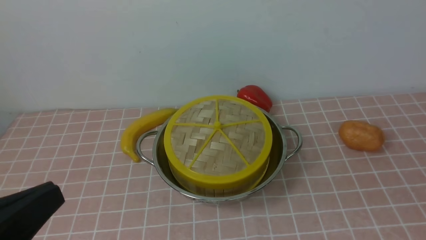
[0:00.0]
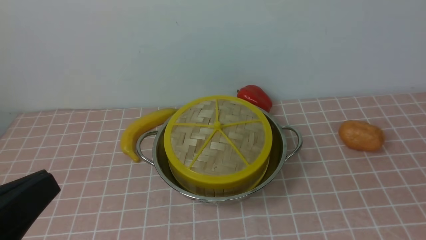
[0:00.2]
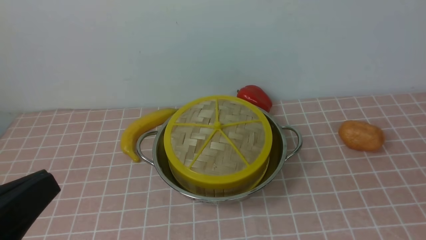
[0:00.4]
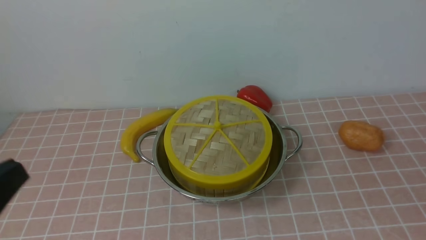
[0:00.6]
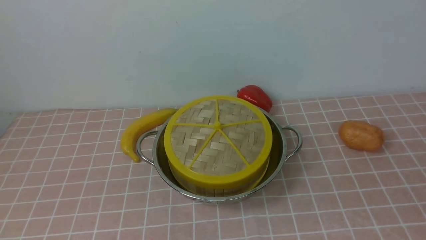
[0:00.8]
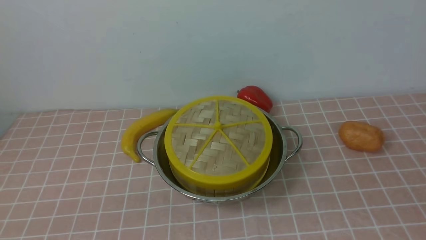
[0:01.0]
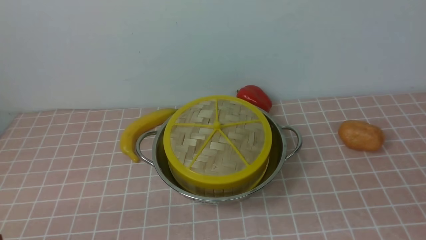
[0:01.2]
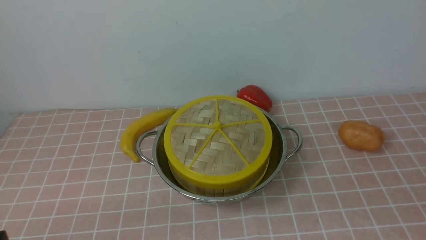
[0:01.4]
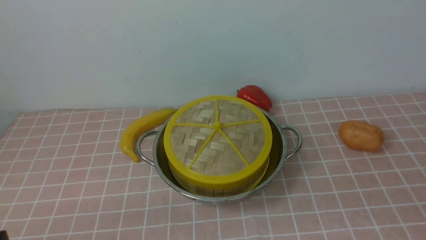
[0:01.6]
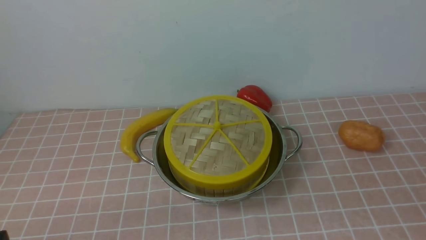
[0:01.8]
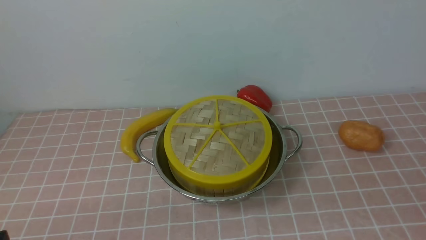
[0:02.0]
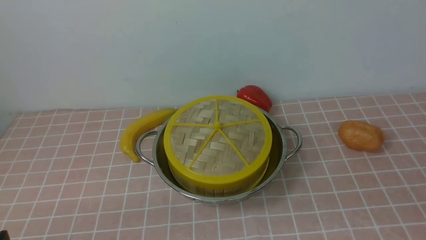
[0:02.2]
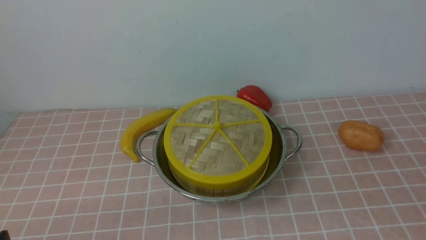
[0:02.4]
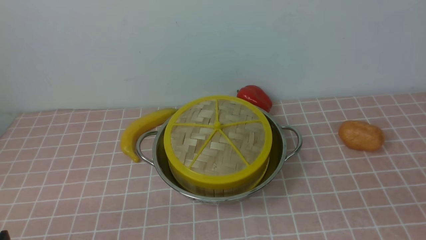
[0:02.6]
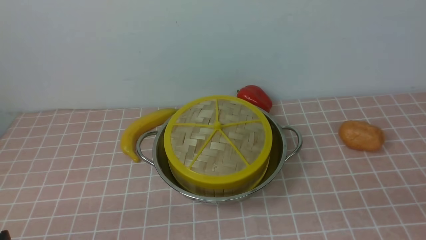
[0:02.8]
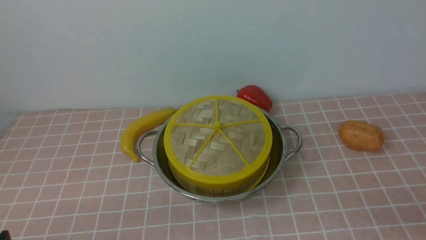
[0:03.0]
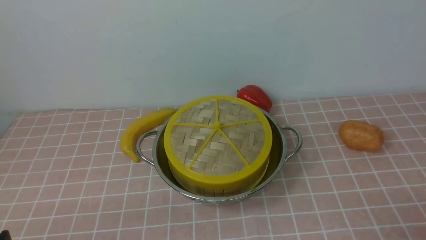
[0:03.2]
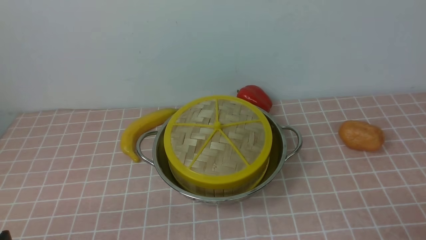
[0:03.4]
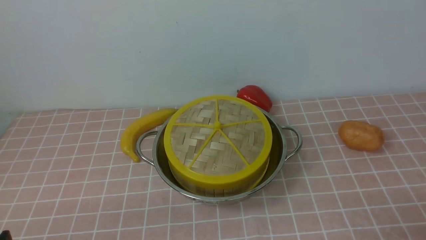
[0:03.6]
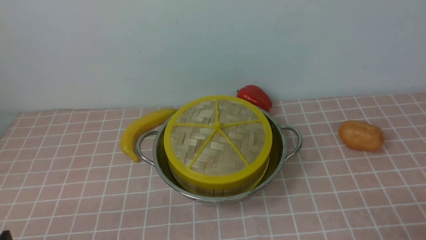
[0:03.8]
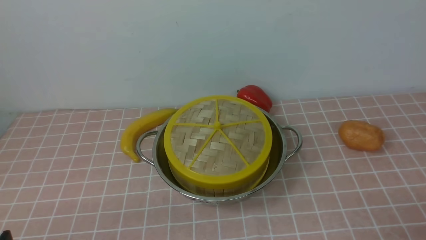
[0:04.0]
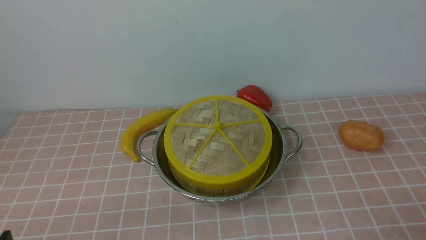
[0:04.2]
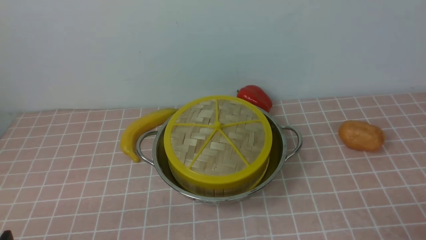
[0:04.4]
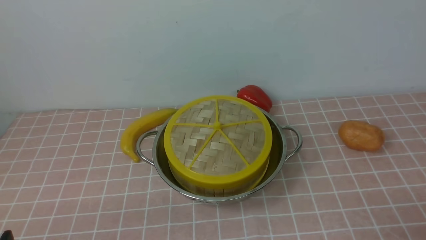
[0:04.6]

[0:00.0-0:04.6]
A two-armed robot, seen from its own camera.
Task of the whole recording: place the steamer in the pot on the pink tablecloth, and put the lid on the steamer.
0:00.0 to 0:01.6: The left gripper travels downward by roughly 15 cm.

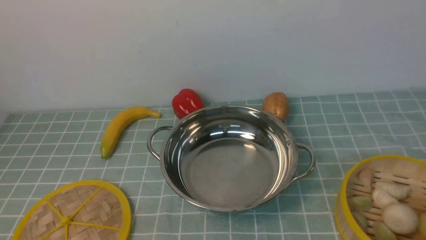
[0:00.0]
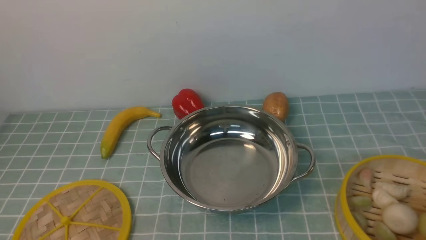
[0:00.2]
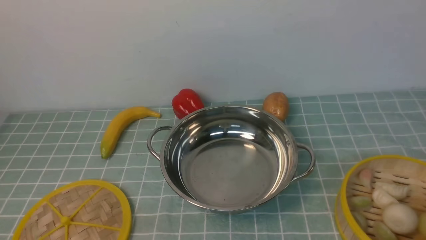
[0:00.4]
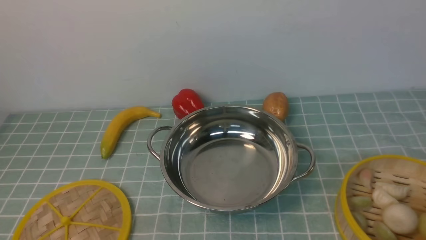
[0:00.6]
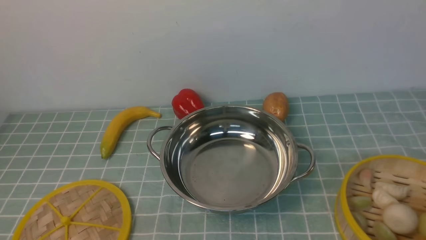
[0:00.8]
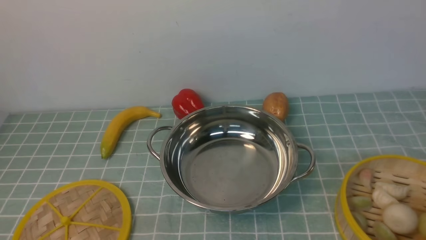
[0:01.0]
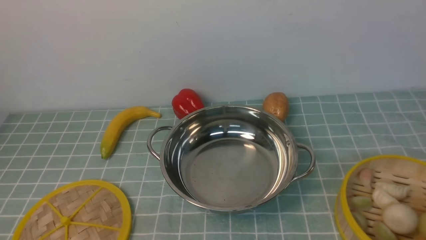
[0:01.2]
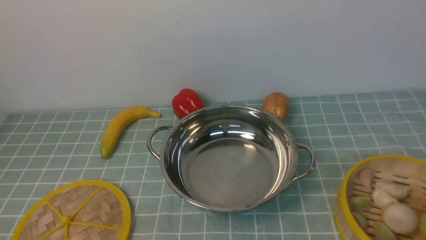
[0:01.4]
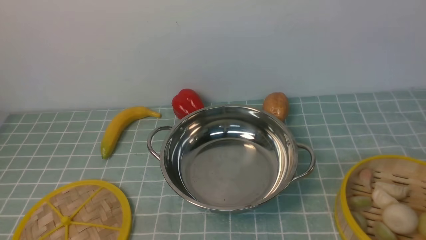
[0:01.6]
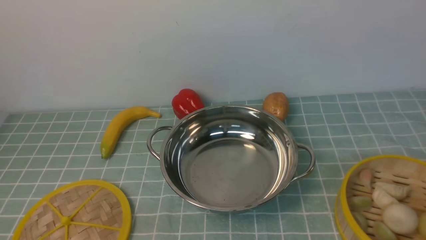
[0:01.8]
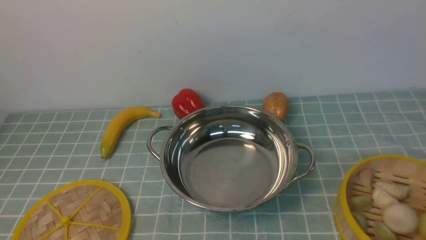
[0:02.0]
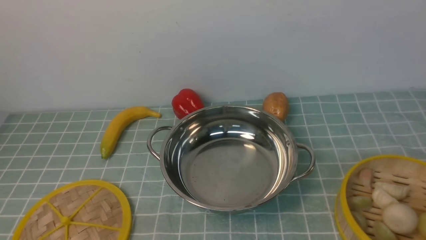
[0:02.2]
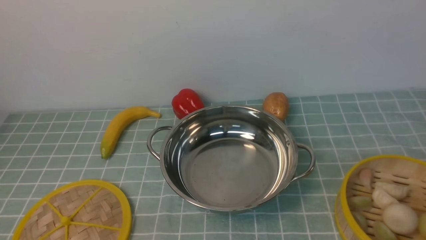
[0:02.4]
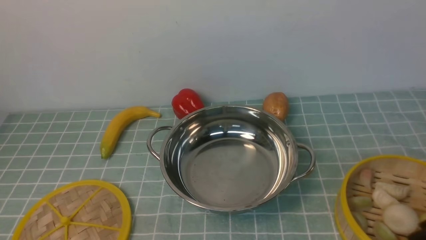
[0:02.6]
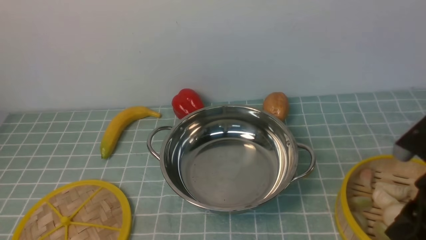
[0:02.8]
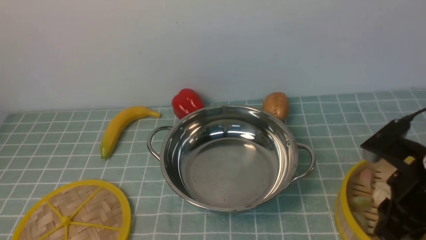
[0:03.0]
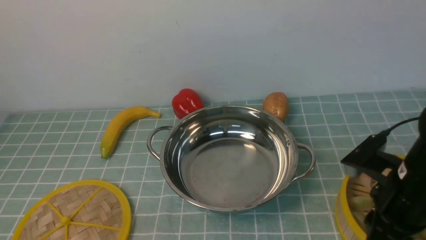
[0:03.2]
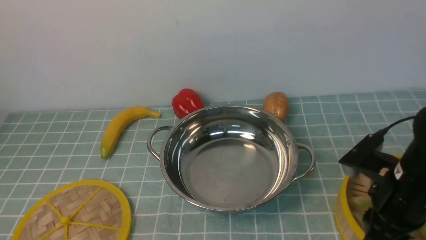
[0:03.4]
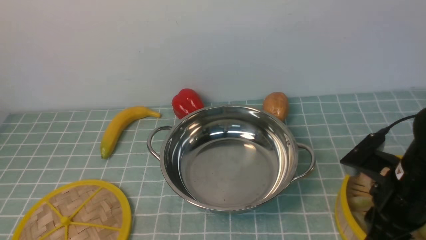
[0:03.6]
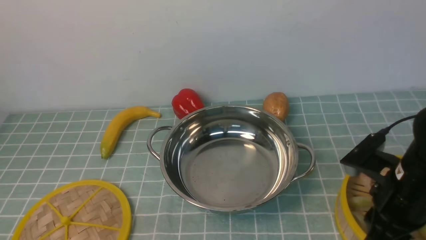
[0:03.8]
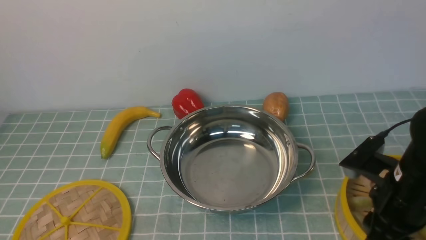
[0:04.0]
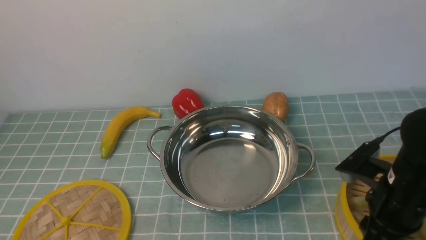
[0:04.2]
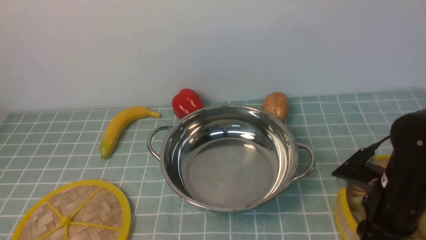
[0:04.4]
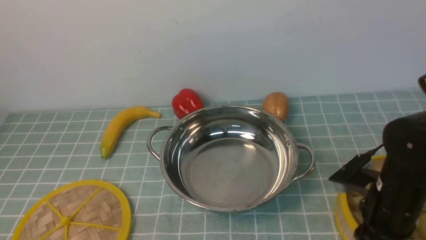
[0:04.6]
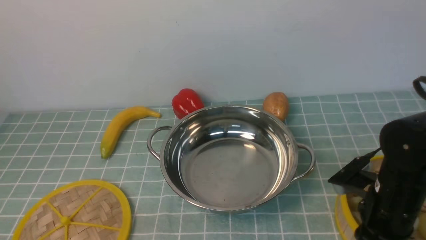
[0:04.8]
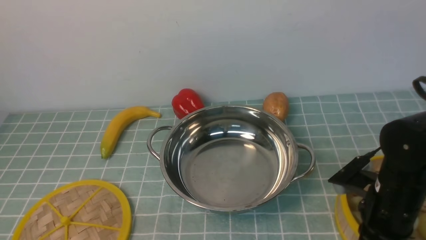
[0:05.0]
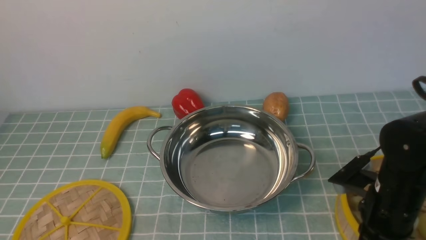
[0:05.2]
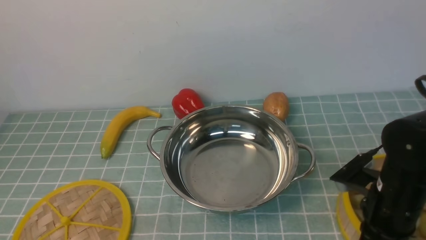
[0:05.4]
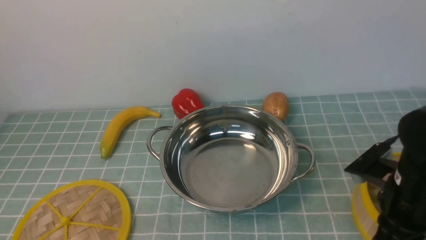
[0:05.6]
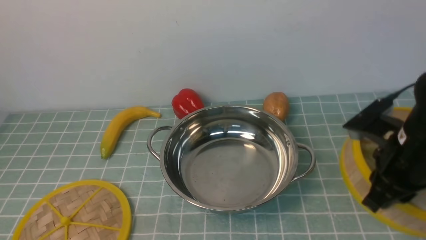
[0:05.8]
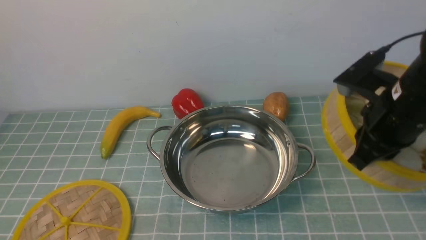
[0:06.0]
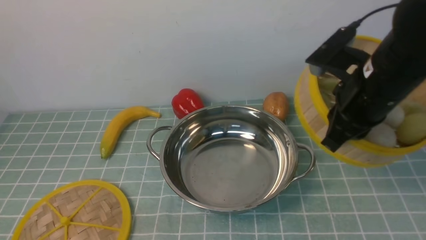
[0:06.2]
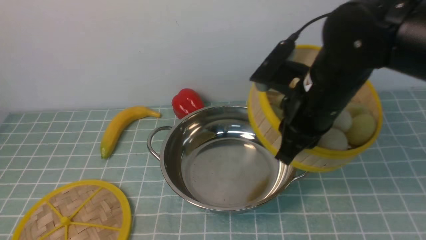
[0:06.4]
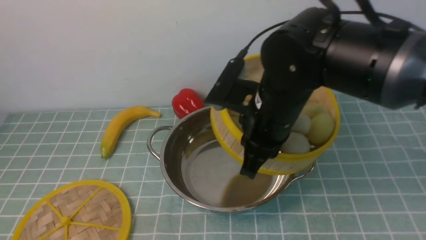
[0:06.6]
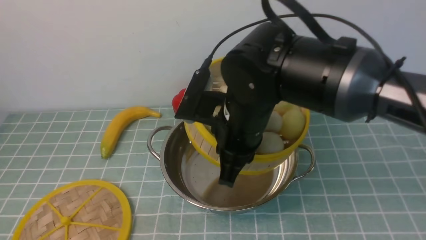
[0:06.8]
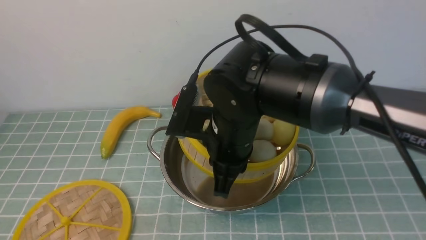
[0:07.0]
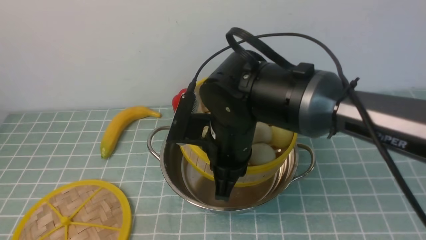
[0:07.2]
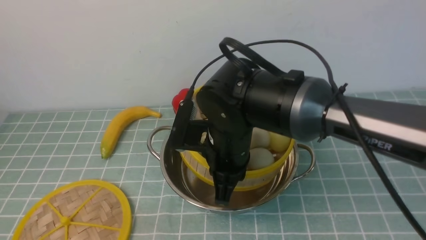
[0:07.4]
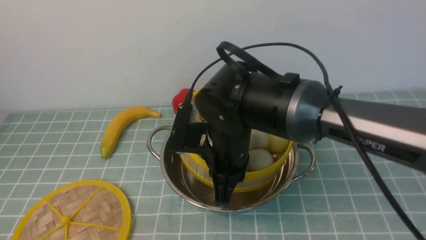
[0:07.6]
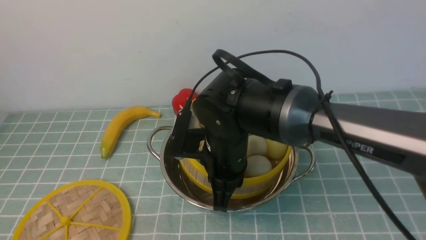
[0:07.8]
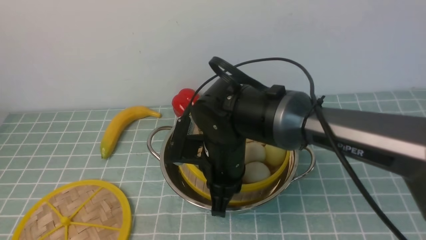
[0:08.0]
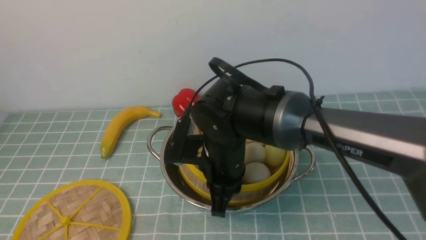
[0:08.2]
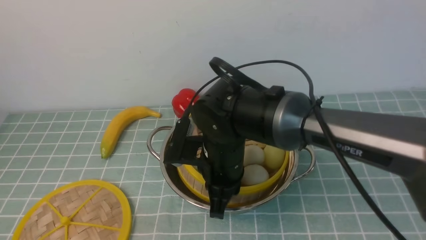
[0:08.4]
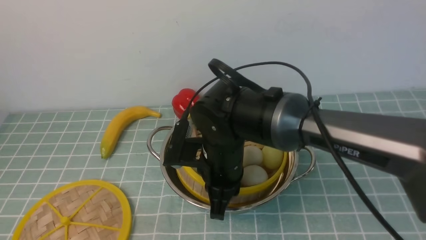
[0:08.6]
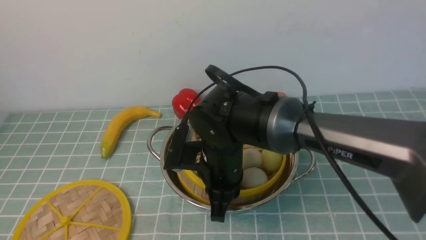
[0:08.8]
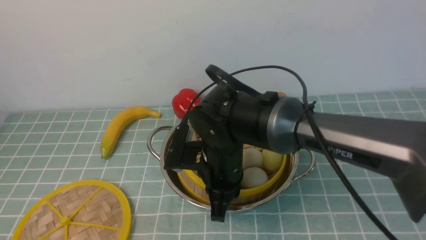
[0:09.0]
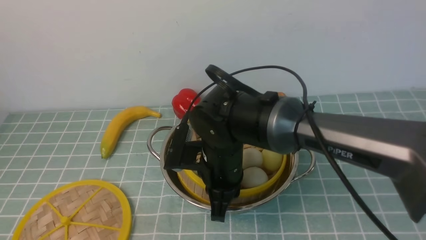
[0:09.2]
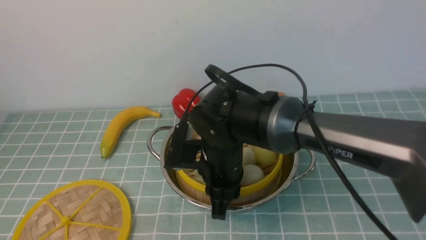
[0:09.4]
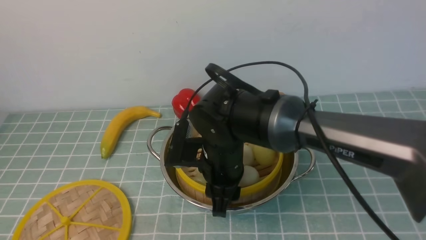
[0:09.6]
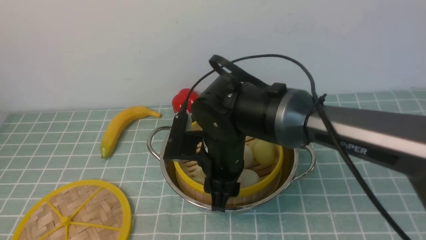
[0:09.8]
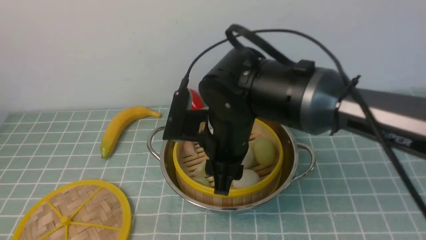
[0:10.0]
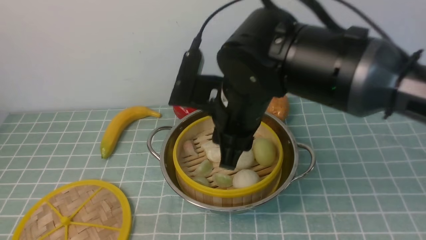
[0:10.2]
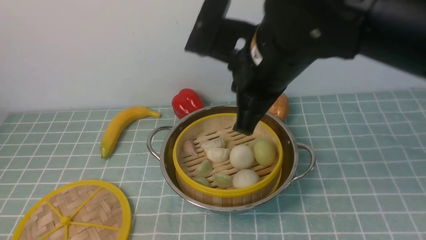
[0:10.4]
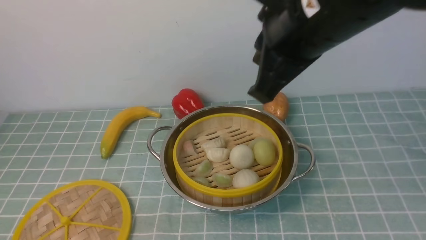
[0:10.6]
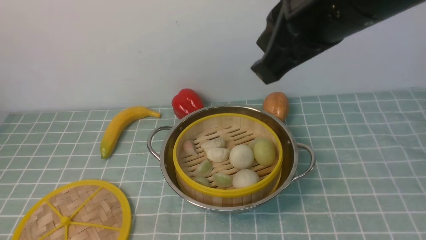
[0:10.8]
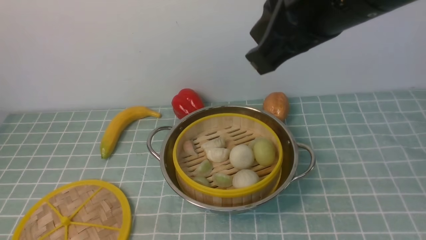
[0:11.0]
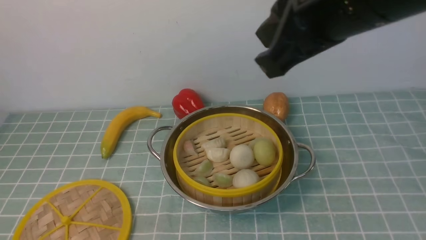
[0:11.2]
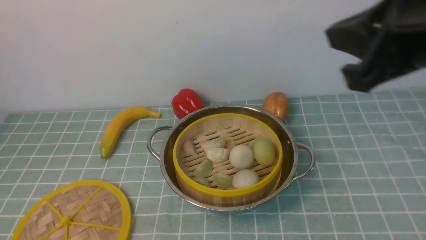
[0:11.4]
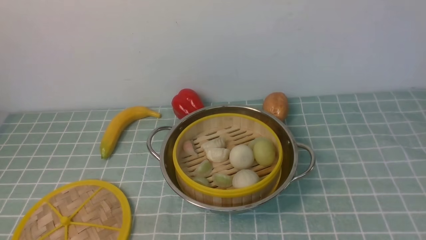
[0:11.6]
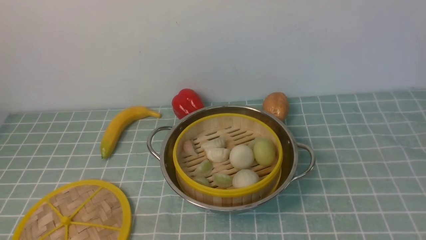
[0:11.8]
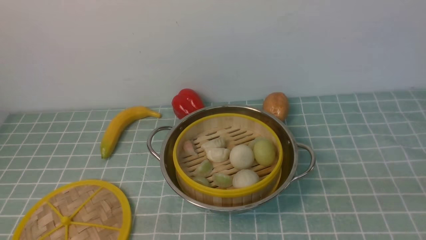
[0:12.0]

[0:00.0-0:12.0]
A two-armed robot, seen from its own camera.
Task of the whole recording: place the steamer in the pot on the blue tablecloth, and put the lid on the steamer.
Step, 0:00.0 to 0:05.8: use the right arm to lift the steamer closest to it.
Step, 0:06.2 to 0:10.2: use the right arm to put the steamer into the iron steamer pot in the middle.
0:01.6 to 0:03.0: The right gripper heads forward and to the left, covering approximately 15 cm.
0:03.0 to 0:04.4: The right gripper goes approximately 5 cm downward.
0:04.4 to 0:06.0: The right gripper goes about 10 cm upward, and closes up.
0:06.0 to 0:07.6: The right gripper moves to the left, roughly 20 cm.
0:07.6 to 0:09.0: There are only small adjustments of the grippers.
0:09.0 to 0:10.4: The right gripper is displaced upward by some 15 cm, and opens, then closes once more.
0:10.4 to 0:12.0: The right gripper moves to the right and backward, roughly 35 cm.
